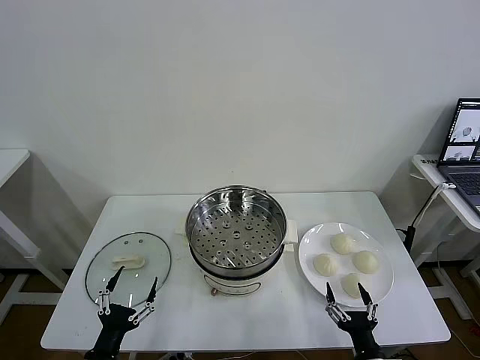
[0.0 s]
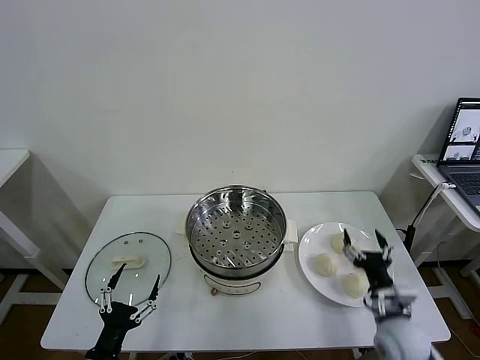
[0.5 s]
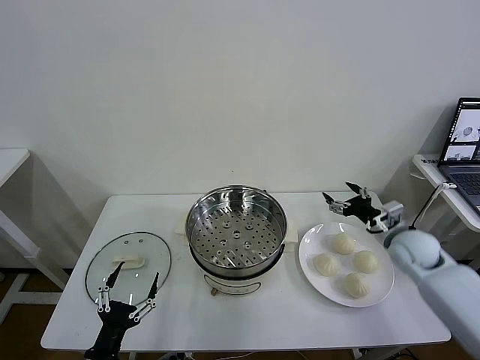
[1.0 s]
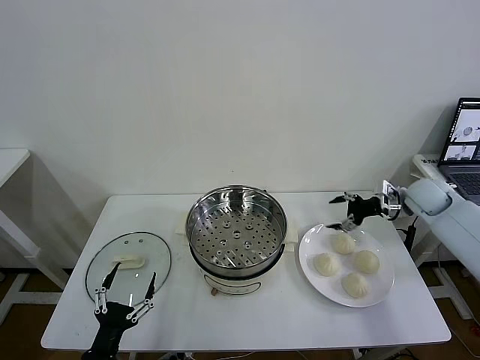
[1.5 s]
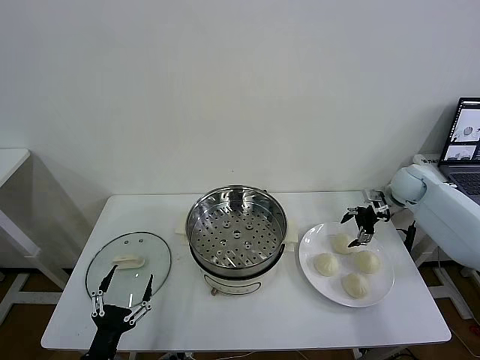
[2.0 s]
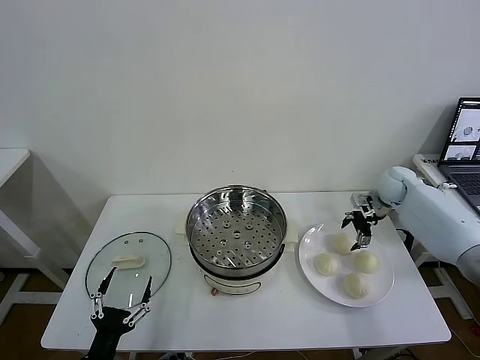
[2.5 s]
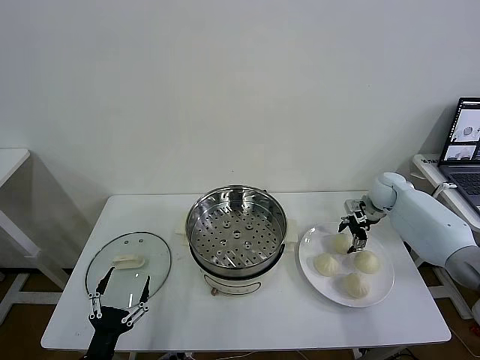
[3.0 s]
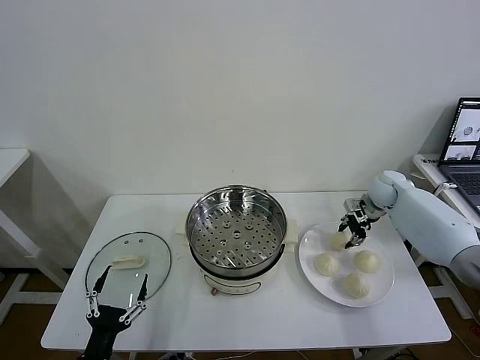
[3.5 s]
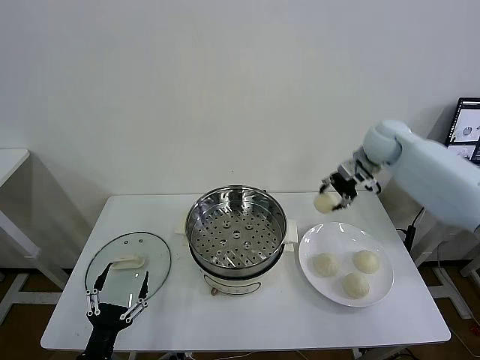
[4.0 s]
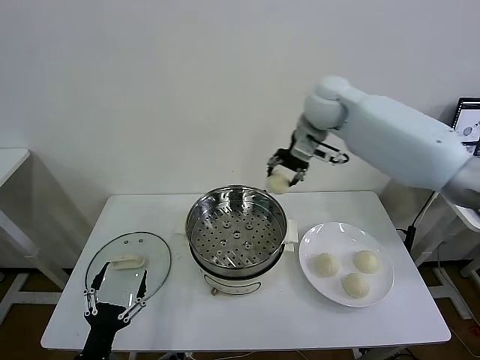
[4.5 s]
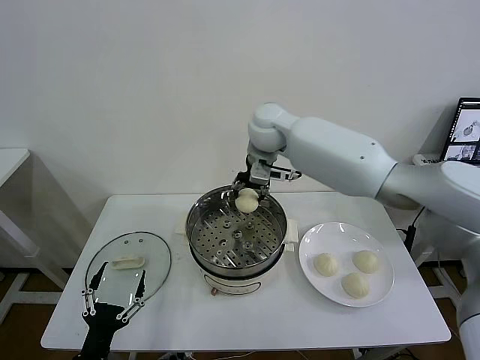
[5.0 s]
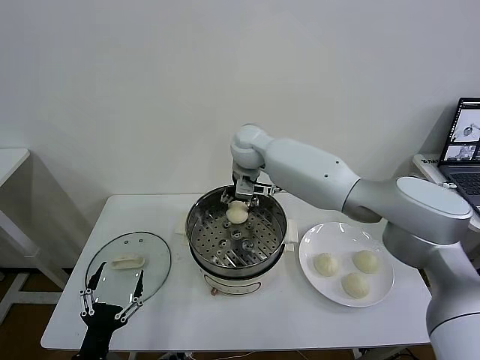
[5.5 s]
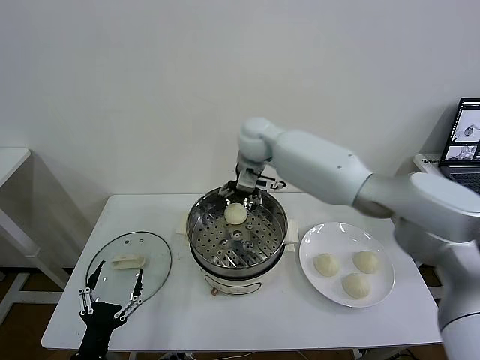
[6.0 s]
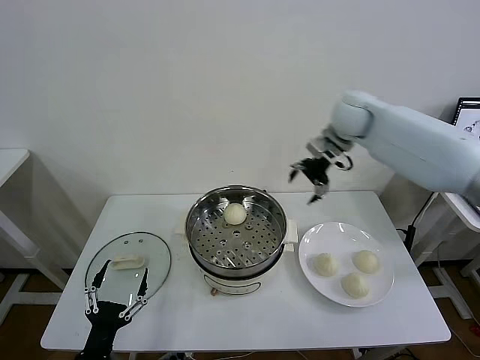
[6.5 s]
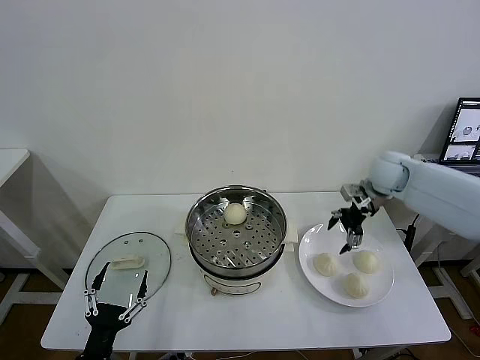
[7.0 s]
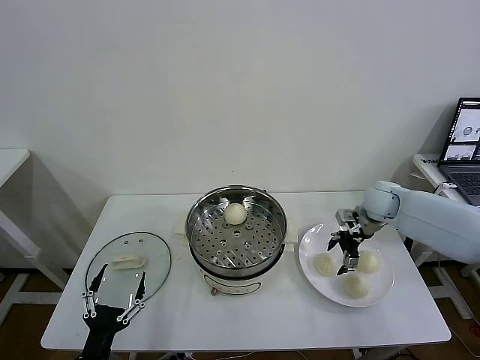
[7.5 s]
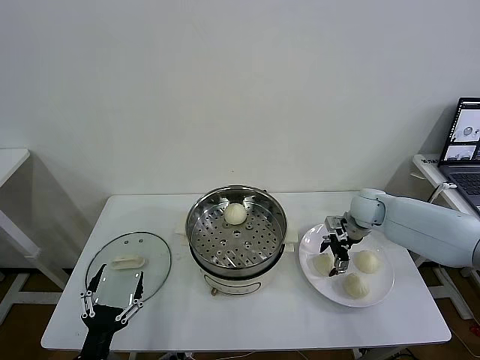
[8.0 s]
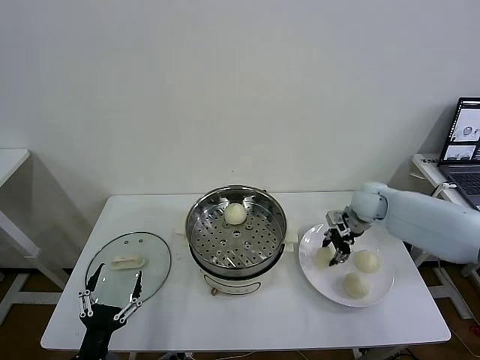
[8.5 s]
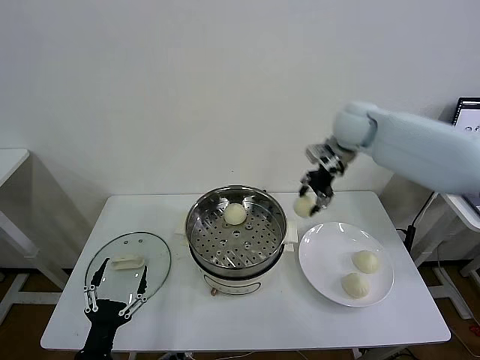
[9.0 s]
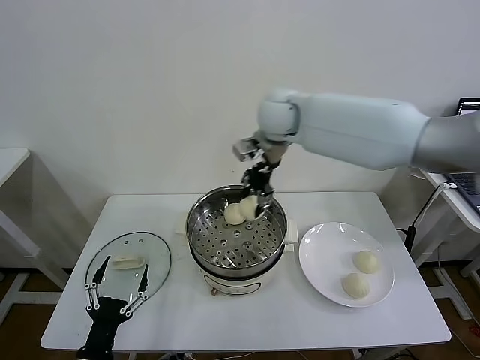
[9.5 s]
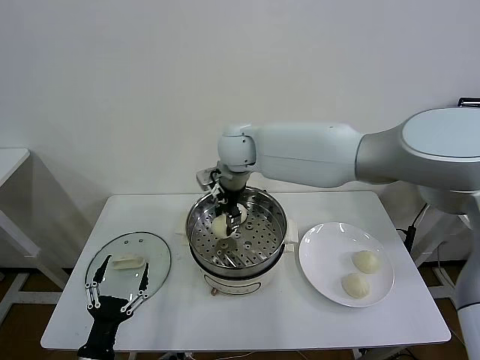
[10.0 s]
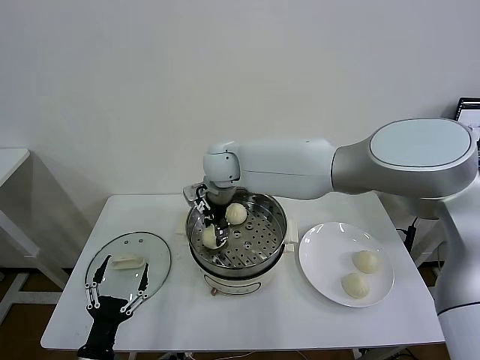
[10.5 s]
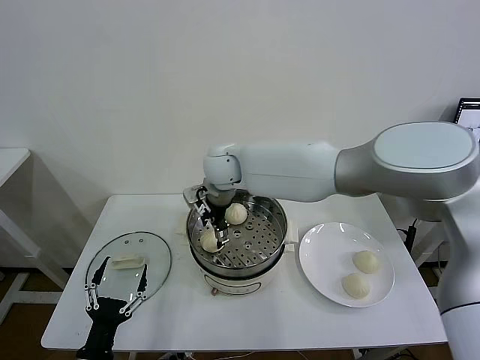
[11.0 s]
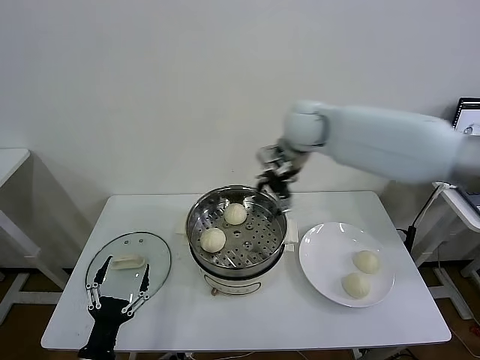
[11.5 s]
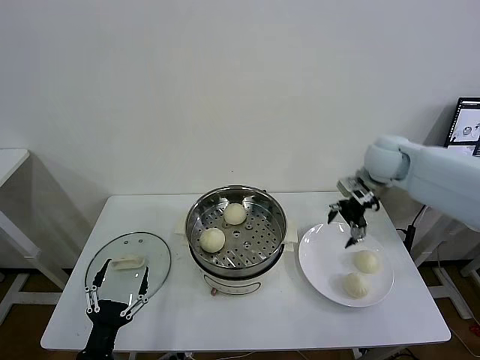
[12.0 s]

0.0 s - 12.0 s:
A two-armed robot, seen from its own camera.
Task of the whole recording: take steamed baozi put them in steamer then cover it.
Step, 0.0 s - 3.0 s: Grasp the baozi in the plate with right gripper.
Step, 3.5 s - 5.5 s: Place the baozi on the steamer with right gripper.
Step, 6.0 s - 8.0 s: Grasp the baozi in the plate with right gripper.
Step, 8.5 s - 10.5 s: Place the baozi on the steamer with right gripper.
2.0 s - 4.0 s: The right gripper goes some 20 cm upward and to the left, and closes.
4.0 s - 6.0 s: The right gripper shifts roughly 25 cm to the left, and opens its fingers.
6.0 s - 8.0 s: The right gripper shifts some 35 cm to the right and downward.
8.0 s - 10.0 s: The right gripper goes roughly 40 cm to the left and upward, and closes.
10.0 s - 12.0 s: The right gripper goes roughly 35 cm to the right, and opens its fingers.

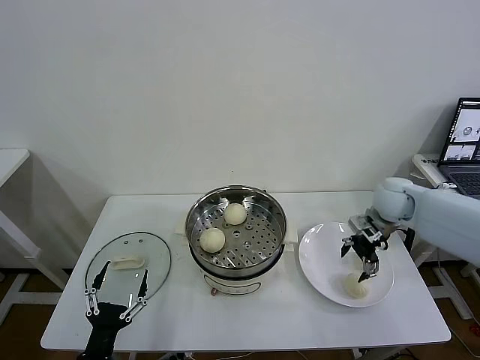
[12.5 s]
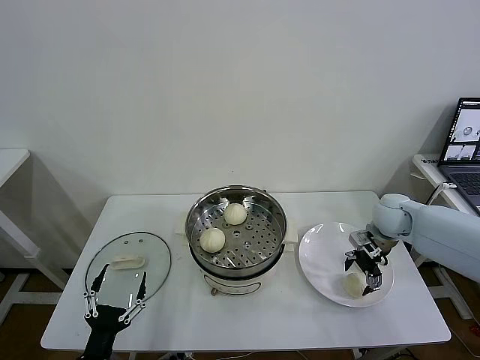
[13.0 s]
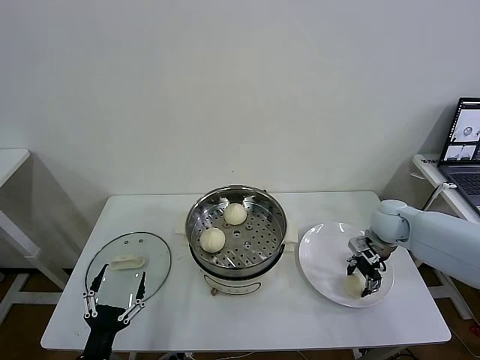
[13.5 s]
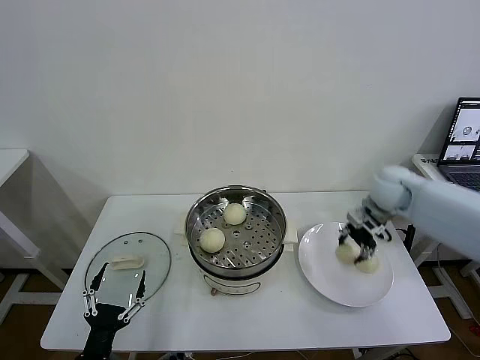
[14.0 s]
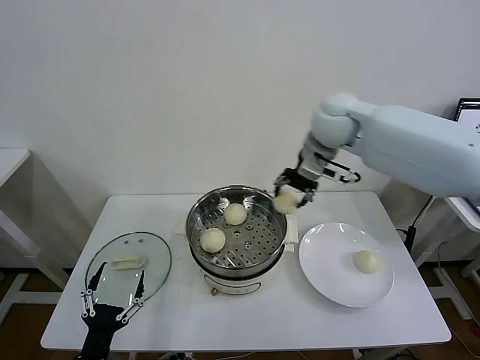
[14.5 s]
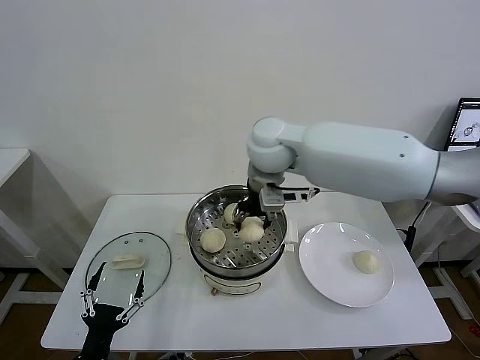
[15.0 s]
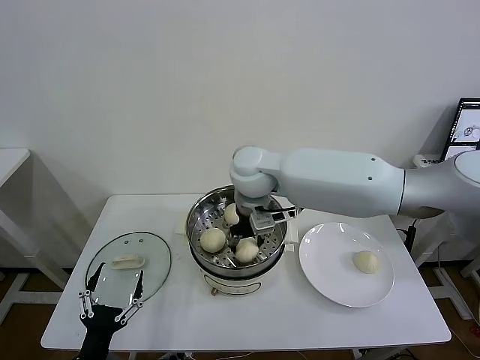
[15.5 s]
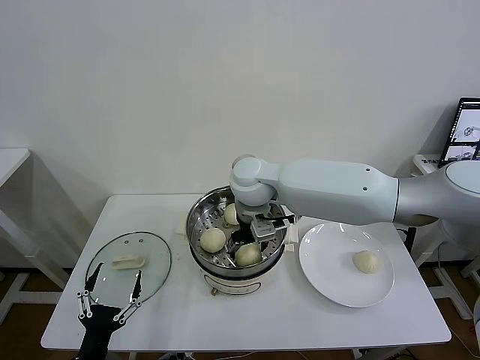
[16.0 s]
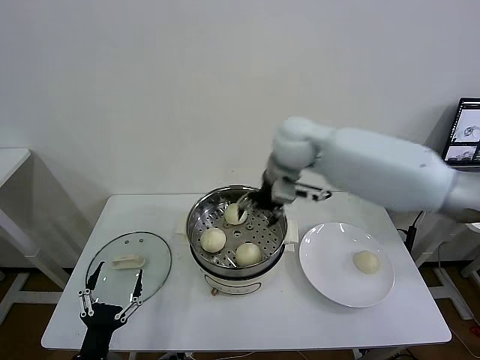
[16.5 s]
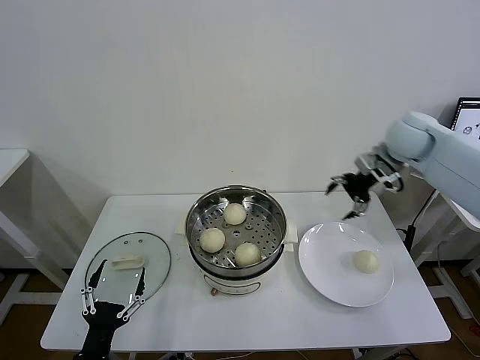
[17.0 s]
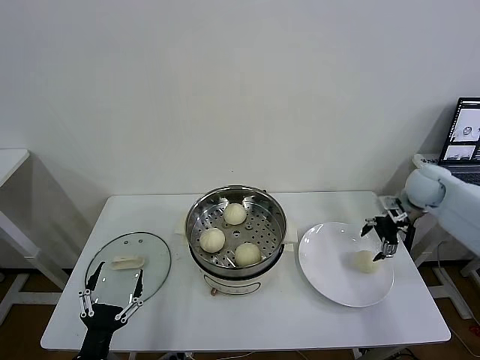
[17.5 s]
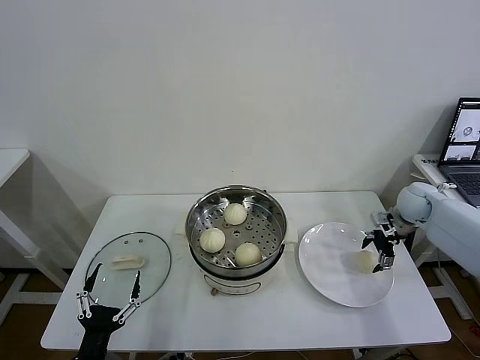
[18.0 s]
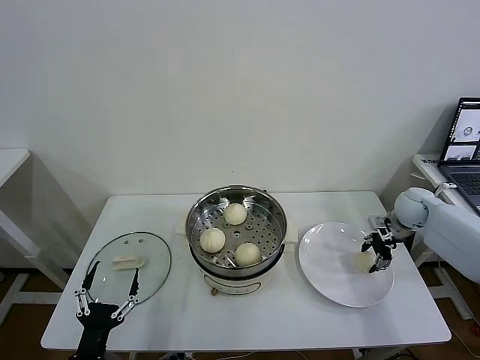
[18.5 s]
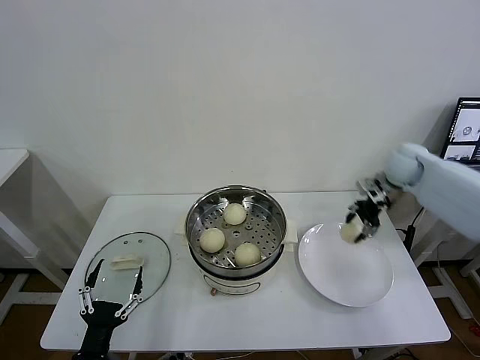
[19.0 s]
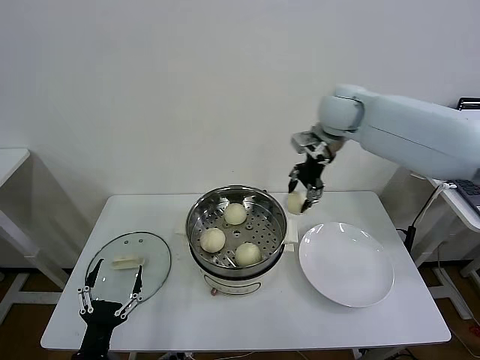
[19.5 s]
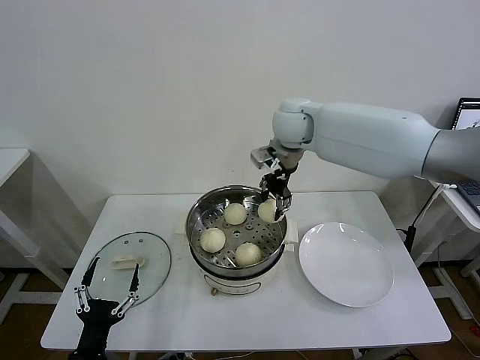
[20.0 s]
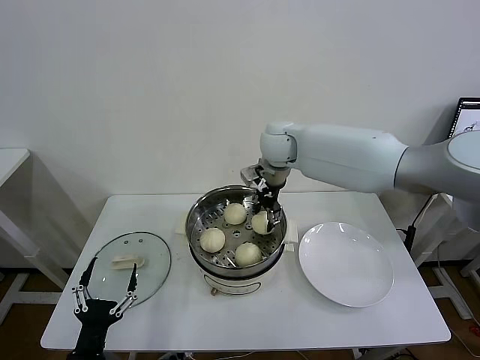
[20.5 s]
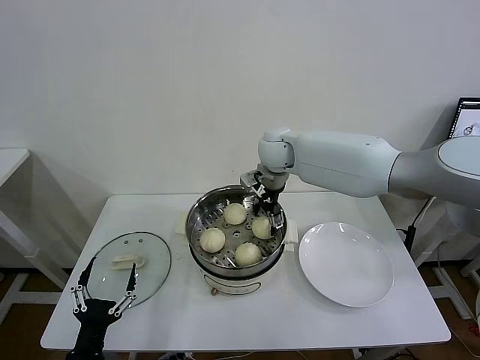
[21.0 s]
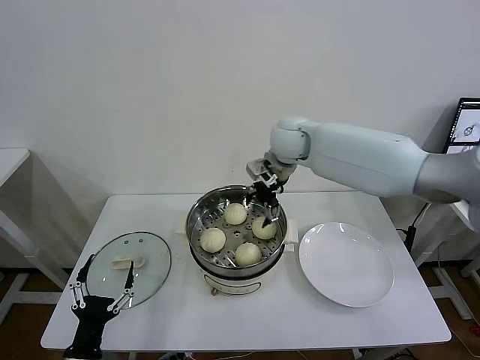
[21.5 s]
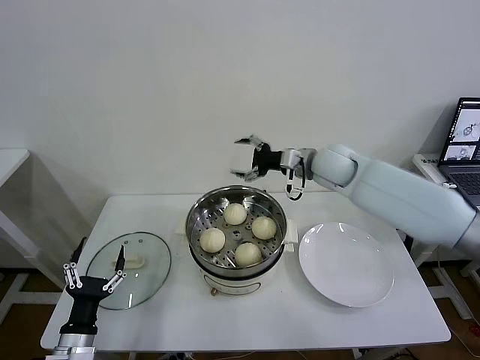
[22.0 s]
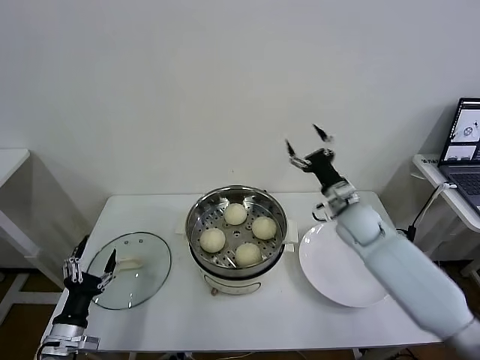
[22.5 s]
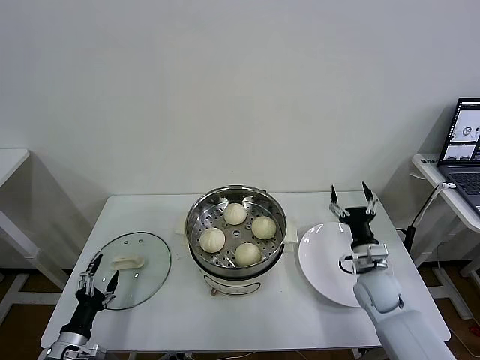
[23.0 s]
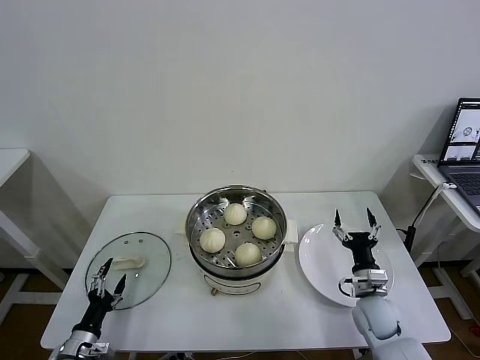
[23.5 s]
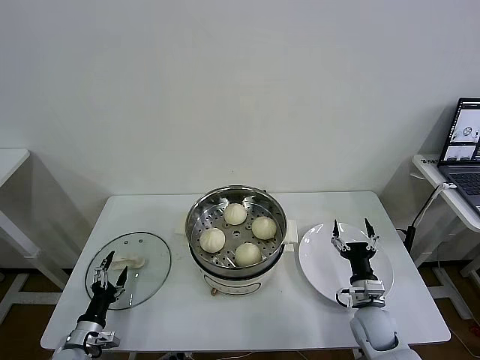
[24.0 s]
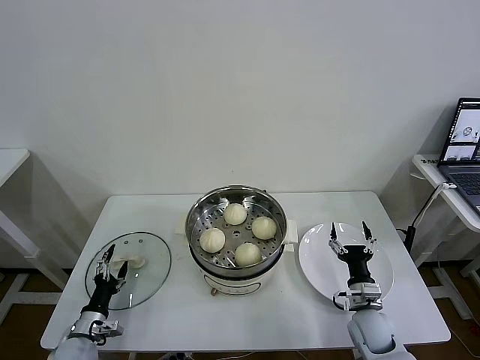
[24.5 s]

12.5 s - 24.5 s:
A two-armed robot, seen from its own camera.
Task of the whole recording: take steamed baozi put them in steamer then cover it.
Step, 14.0 s - 16.0 s: Place the baozi on the steamer with right gripper.
Step, 16.5 s - 18.0 s: Grasp the baozi in the plate with right gripper.
Step, 19.0 s - 21.0 s: Place the baozi on the steamer with right gripper.
12.5 s - 14.5 s: The right gripper goes roughly 30 cm to the left and upward, and closes.
14.5 s - 16.5 s: The right gripper travels to the left and back again, some 15 cm each way, and opens.
16.5 s - 18.5 s: The right gripper goes approximately 40 cm to the right and downward, and closes up.
18.5 s - 20.5 s: The right gripper shifts roughly 40 cm to the left and upward.
20.5 s - 22.5 s: The right gripper moves to the right, downward and backward, roughly 25 cm, and opens up; the left gripper moves to the left and forward, about 10 cm.
22.5 s - 24.5 s: The left gripper shifts about 10 cm downward and forward, while the right gripper is displaced downward and backward by roughly 25 cm.

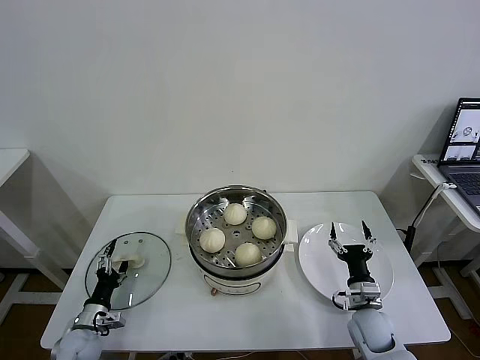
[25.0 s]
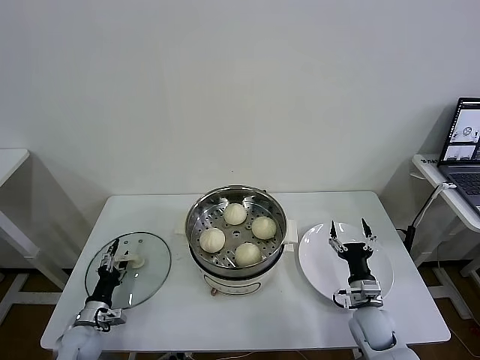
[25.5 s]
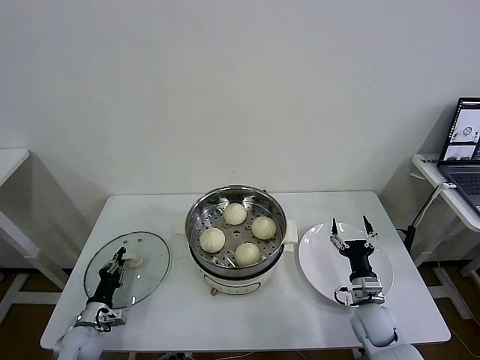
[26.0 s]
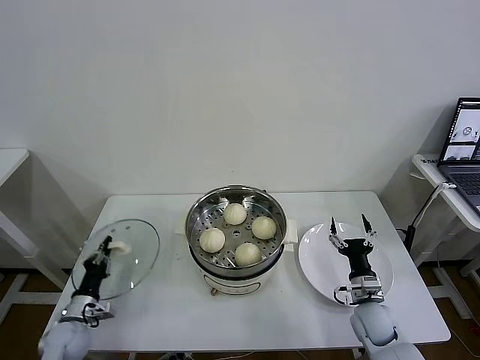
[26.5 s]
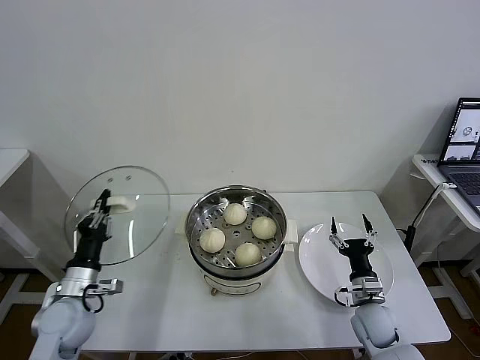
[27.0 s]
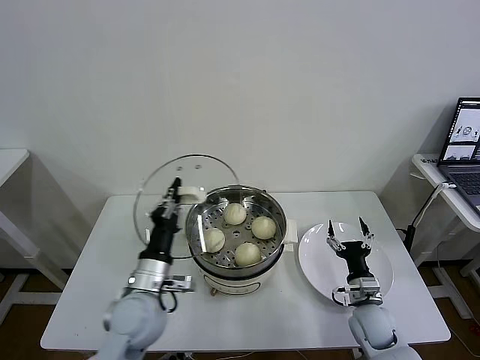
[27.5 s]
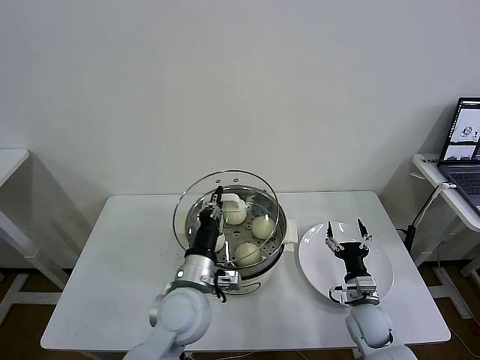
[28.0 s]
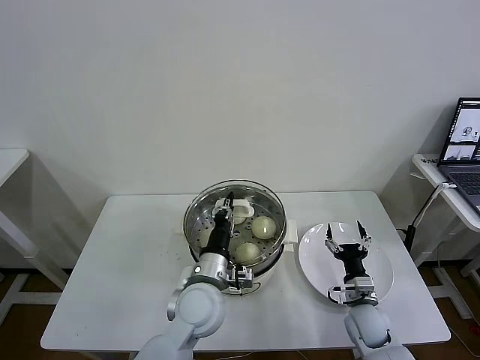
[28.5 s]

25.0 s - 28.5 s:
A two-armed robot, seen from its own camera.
Task of the whole recording: take steamed baozi put them in steamer then cover it.
25.0 s - 27.0 s: The left gripper is displaced upward by some 15 cm, and closes its fingers.
27.0 s - 28.5 s: The left gripper heads to the right, covering some 30 cm.
